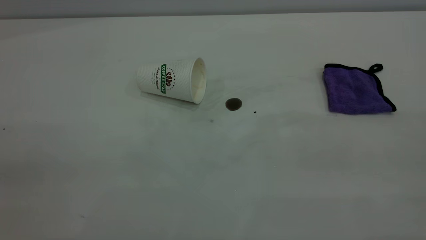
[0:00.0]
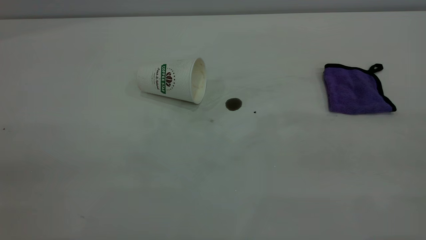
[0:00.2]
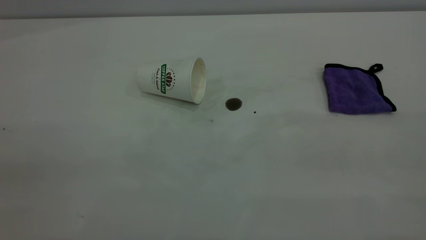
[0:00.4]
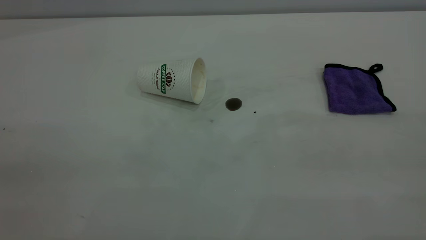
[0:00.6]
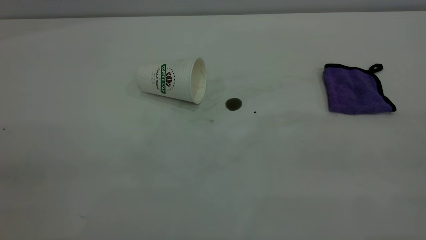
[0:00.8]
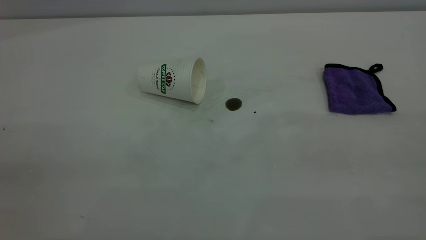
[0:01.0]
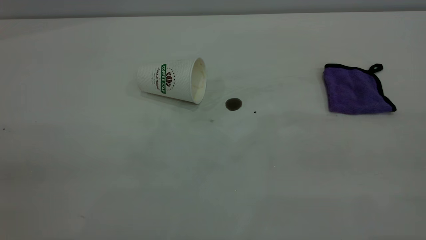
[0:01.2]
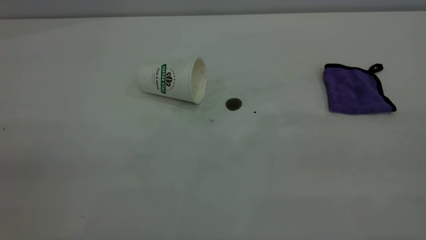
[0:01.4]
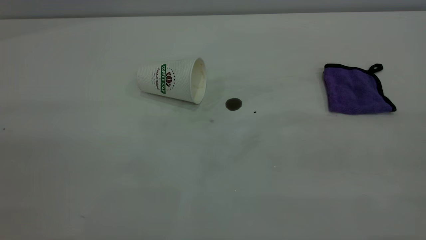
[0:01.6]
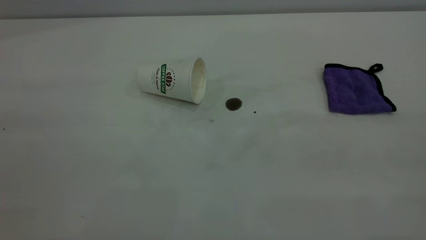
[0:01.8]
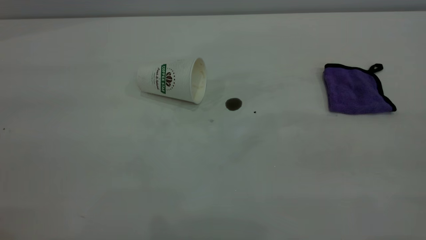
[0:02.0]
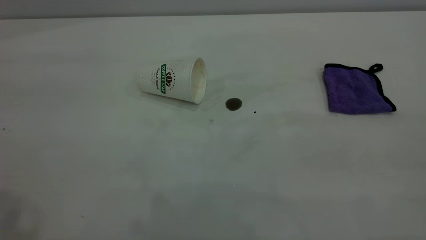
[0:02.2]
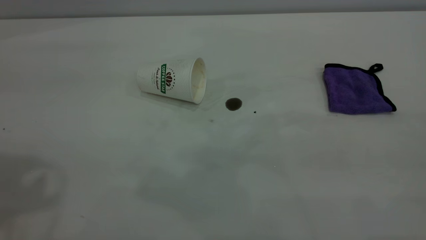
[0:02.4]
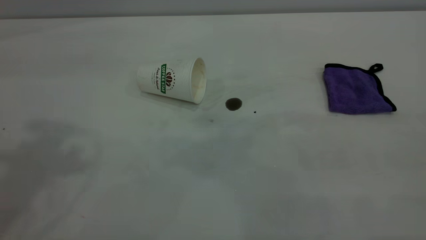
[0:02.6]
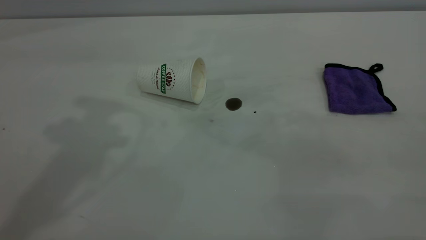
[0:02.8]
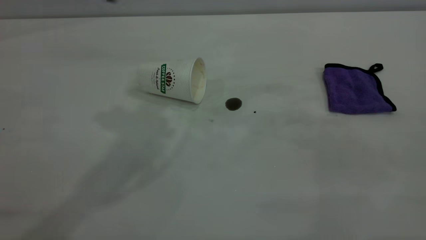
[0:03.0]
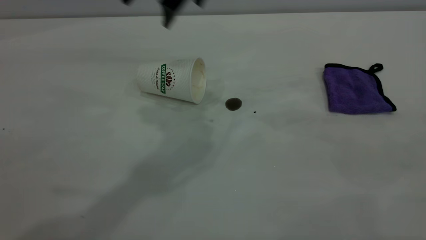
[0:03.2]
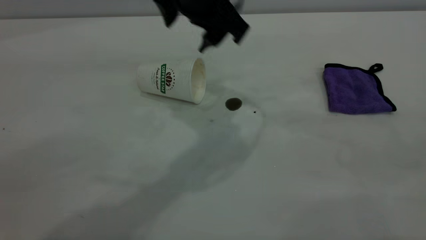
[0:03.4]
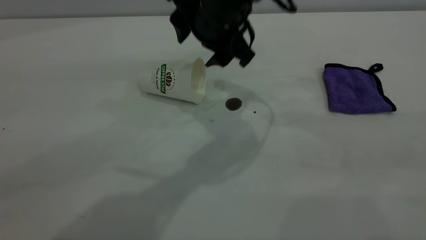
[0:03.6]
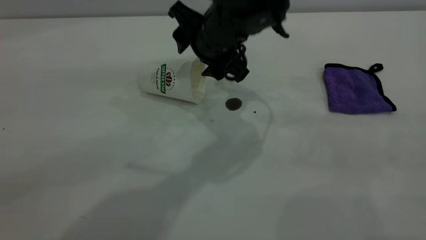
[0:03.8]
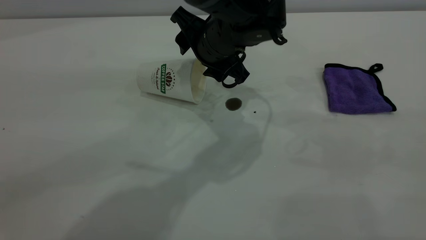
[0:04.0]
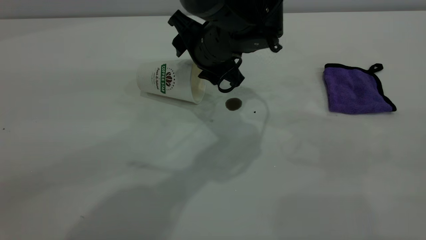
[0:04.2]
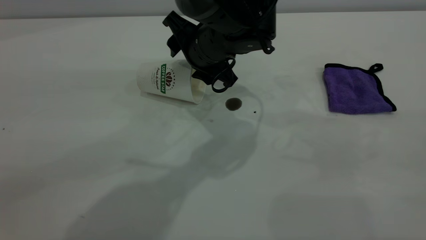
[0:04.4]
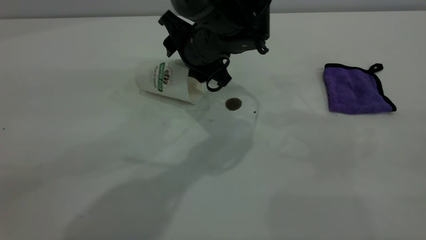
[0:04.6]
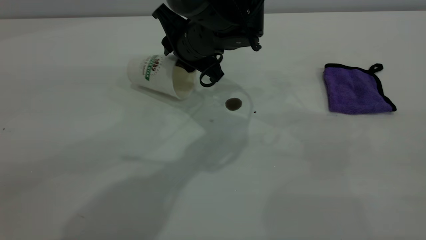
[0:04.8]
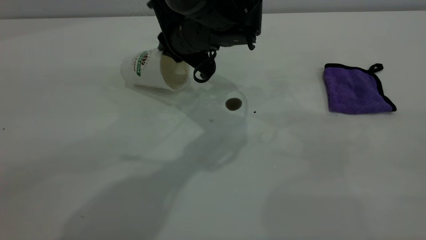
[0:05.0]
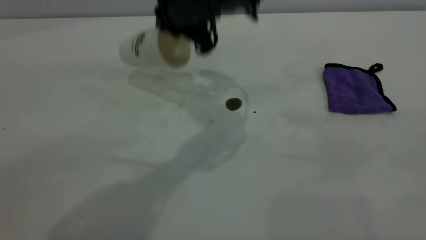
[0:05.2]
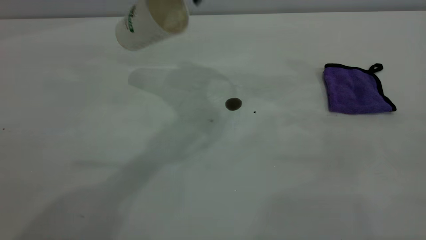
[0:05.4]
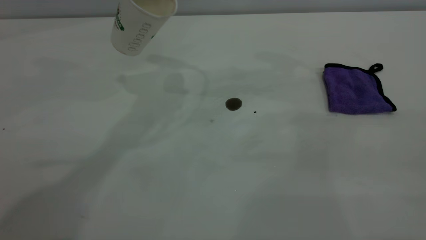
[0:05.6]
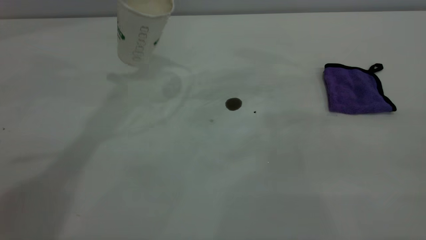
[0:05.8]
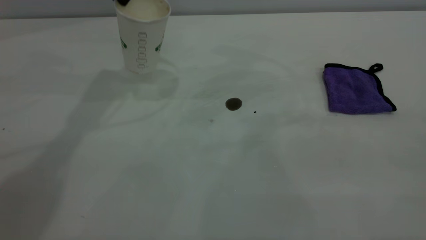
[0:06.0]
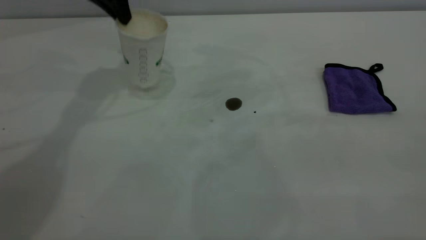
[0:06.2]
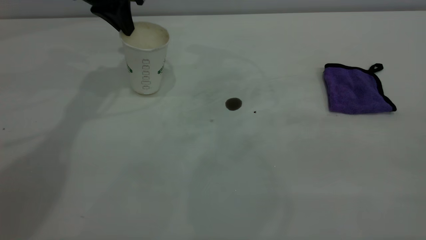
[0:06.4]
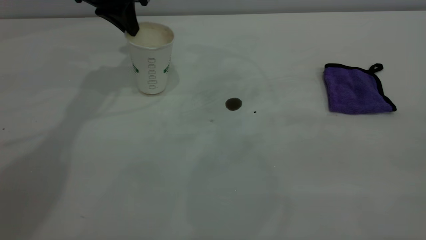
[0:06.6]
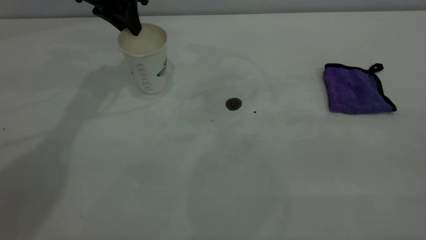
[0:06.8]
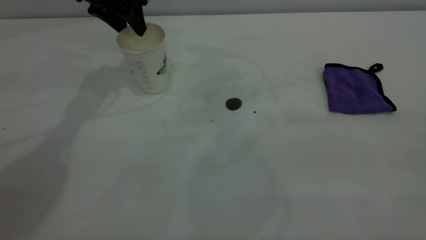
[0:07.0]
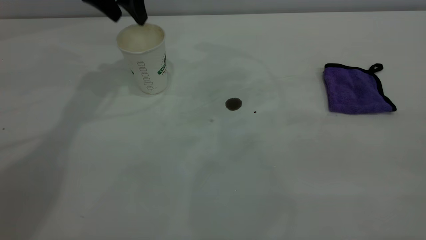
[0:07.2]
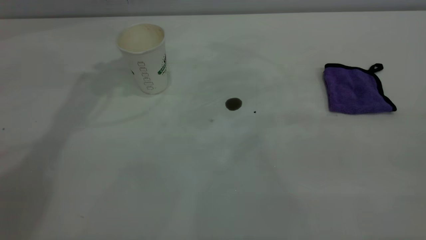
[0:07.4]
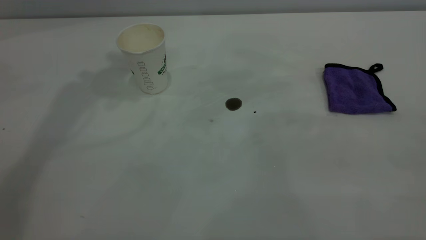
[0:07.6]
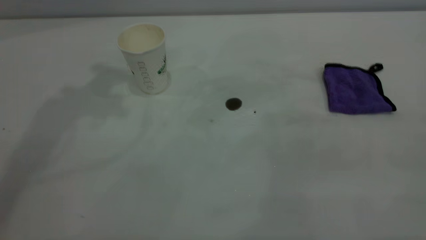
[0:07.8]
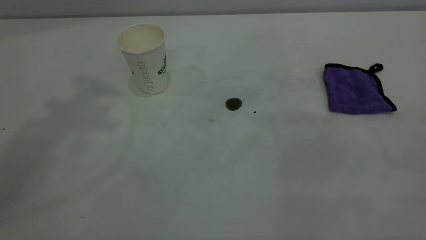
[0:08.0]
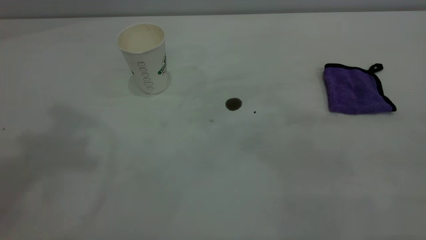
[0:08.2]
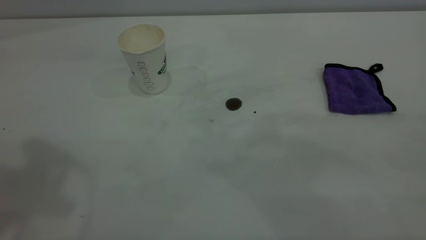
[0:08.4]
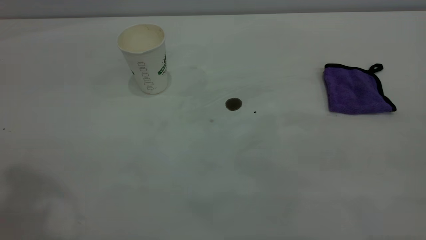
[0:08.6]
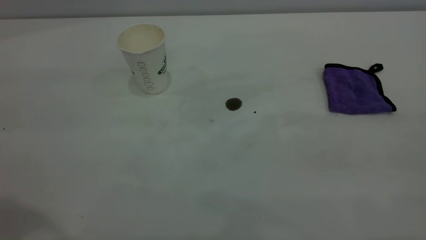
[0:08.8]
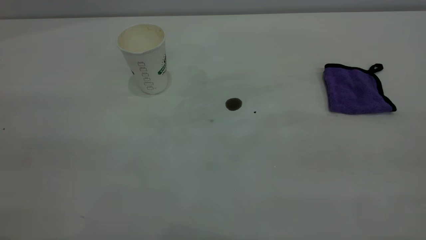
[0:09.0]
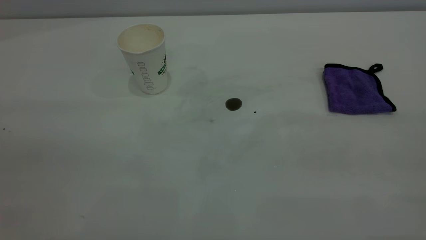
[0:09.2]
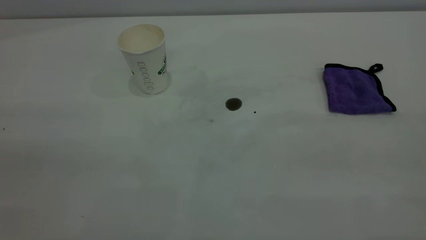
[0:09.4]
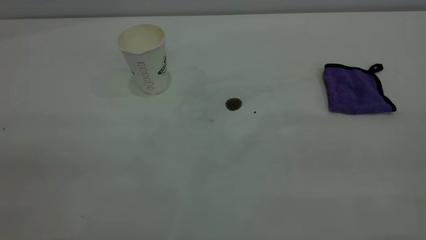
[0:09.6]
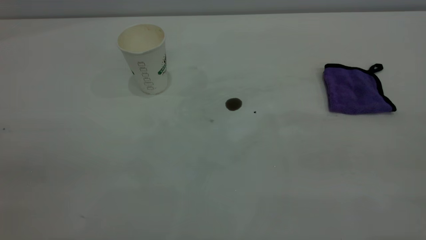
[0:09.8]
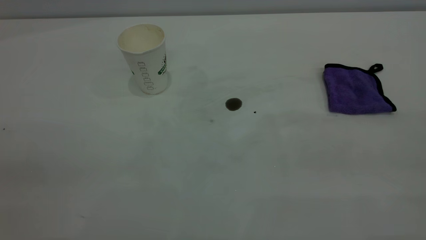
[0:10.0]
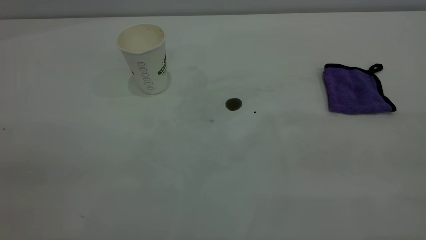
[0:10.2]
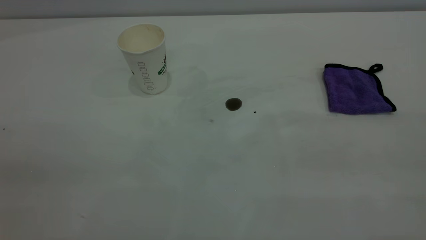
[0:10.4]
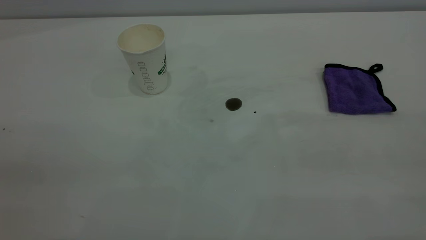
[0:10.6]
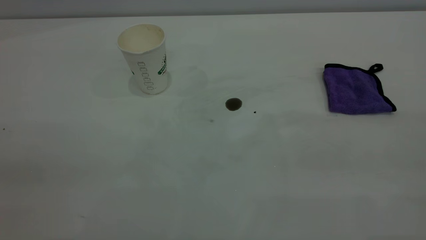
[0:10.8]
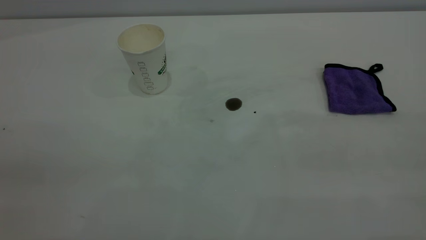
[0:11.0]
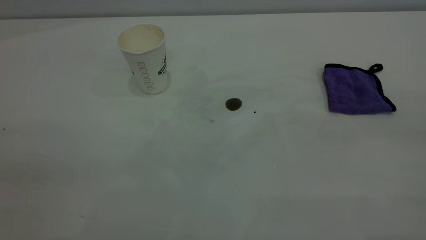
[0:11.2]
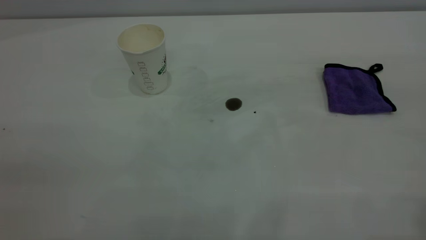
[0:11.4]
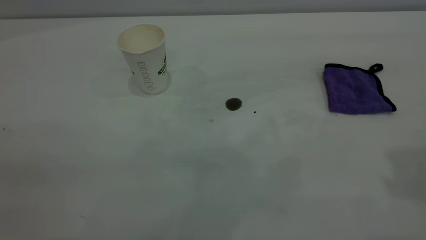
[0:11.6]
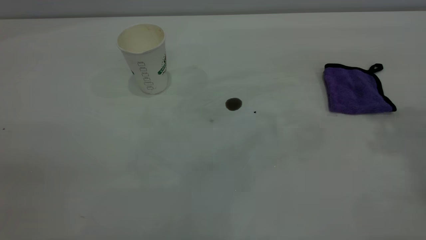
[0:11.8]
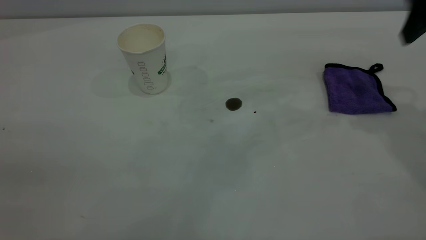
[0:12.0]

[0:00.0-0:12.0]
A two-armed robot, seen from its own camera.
Task of the whole recording: the left gripper pick up the fallen cup and place it upright, the right gripper grasp the purple rag and wipe the coffee stain on the table, the right gripper put the purple rag back in its original position.
Step, 0:00.0 to 0:07.0: Stand the paper cup upright.
0:03.0 to 0:04.4: The left gripper travels downward and to the right by some 25 cm.
0:04.4 to 0:06.0: The left gripper is displaced to the left, upward and forward by roughly 25 cm, and closes up.
0:06.0 to 0:07.6: The left gripper shifts about 10 cm upward, and opens up.
0:10.4 to 0:12.0: The right gripper goes some 35 cm forward.

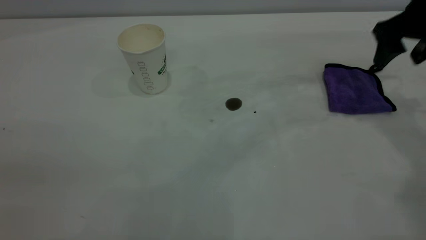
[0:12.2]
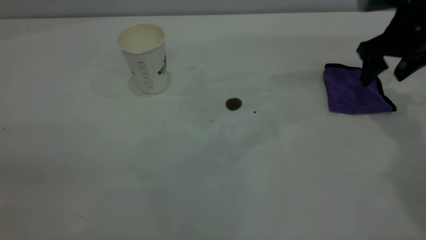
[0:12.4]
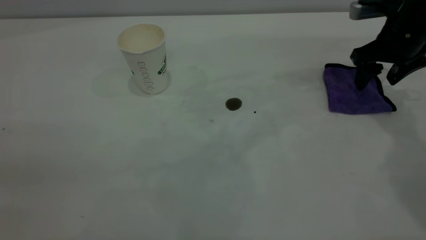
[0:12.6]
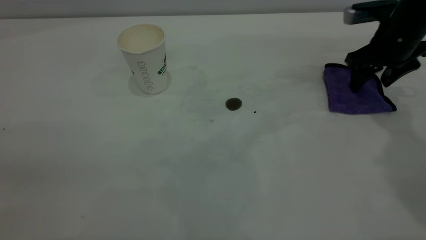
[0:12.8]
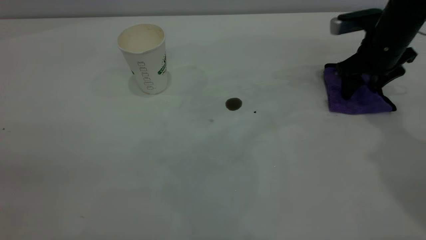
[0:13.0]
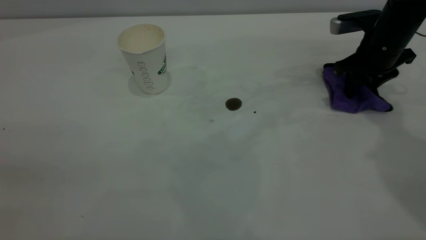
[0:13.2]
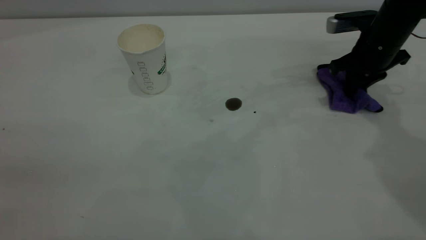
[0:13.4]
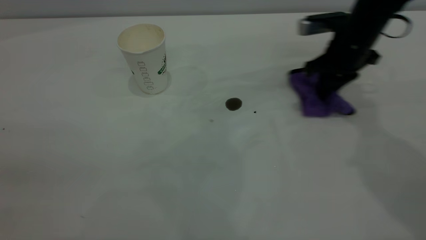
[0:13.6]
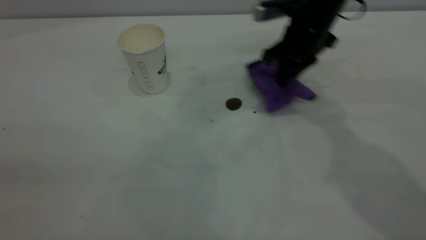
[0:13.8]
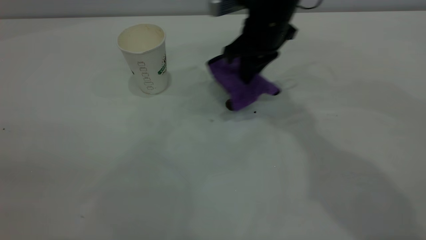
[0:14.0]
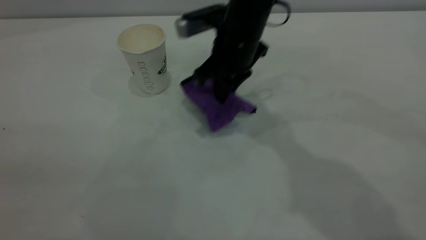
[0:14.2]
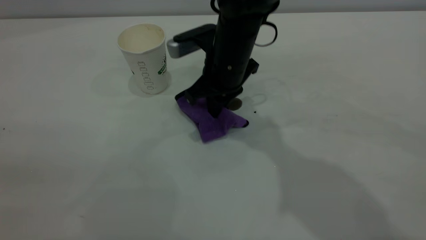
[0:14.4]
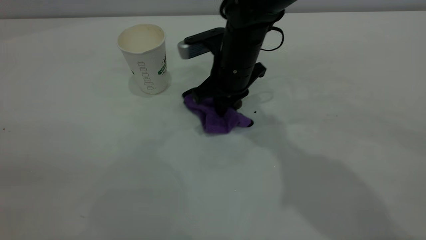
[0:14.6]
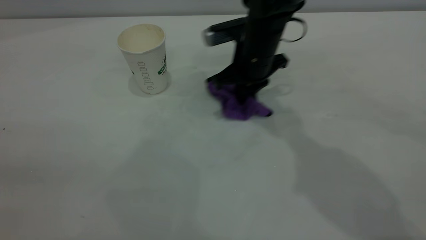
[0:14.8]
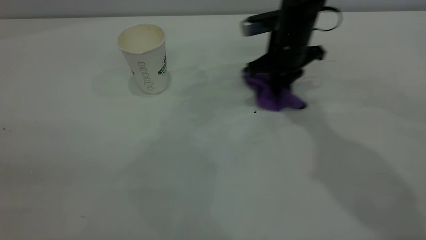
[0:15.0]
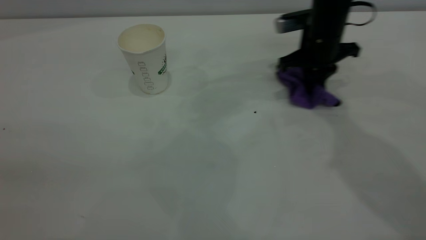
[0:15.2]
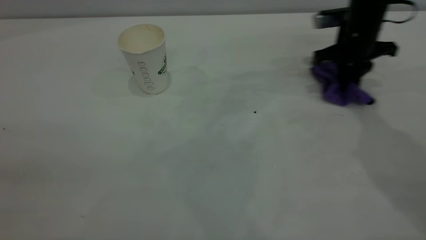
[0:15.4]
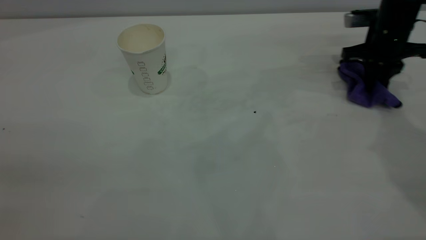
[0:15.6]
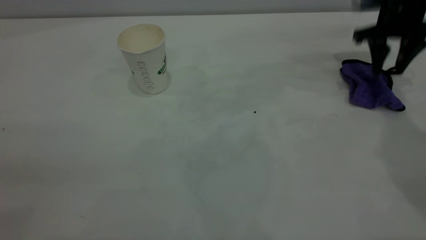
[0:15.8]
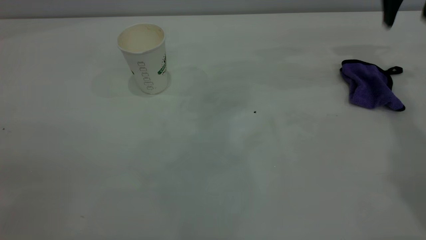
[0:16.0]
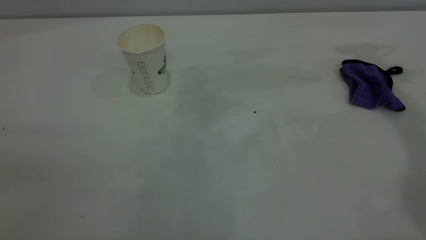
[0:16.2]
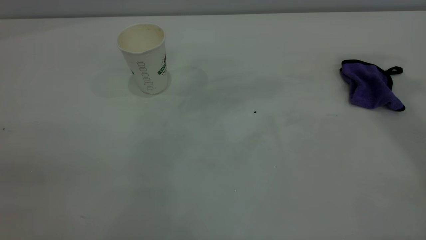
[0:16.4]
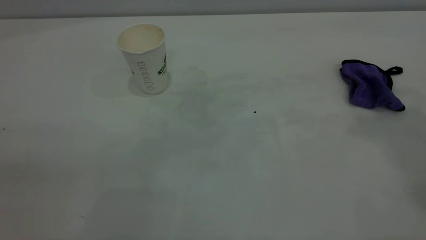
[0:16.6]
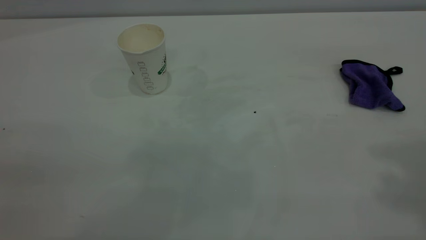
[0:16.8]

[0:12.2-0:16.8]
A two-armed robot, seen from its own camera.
Task of the whole recording: the left gripper pick up the fallen cup and place it upright, the right gripper grasp the purple rag and wipe the coffee stain on the table, the right gripper put the purple rag back in its original position.
Step, 0:12.2 to 0:15.8: Wipe the stains off the table with a rag.
0:12.2 to 0:13.8: The right gripper heads to the left, covering some 15 cm, and closes up.
0:13.8 to 0:15.2: The right gripper moves to the right, some 5 cm.
0:15.2 to 0:16.8: The right gripper moves upward and backward, roughly 50 cm, and opens up.
